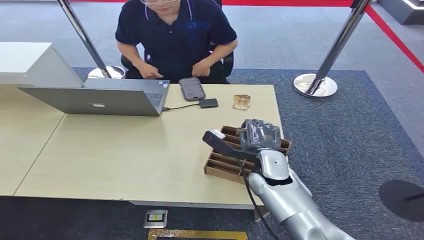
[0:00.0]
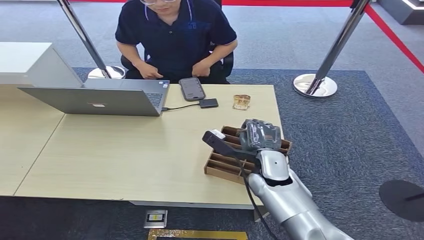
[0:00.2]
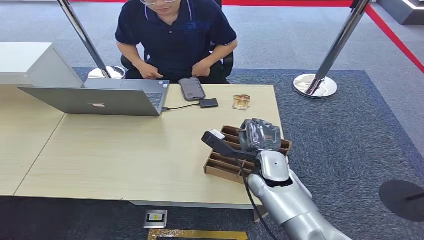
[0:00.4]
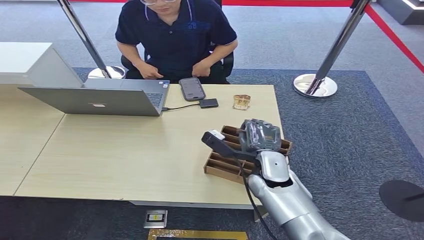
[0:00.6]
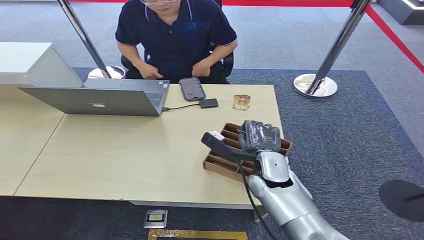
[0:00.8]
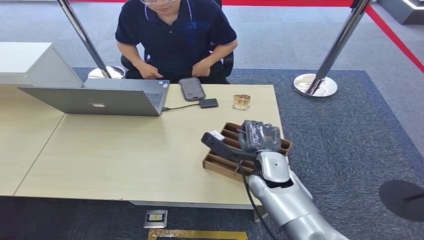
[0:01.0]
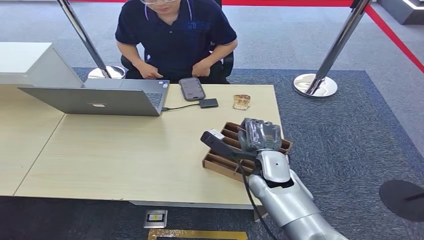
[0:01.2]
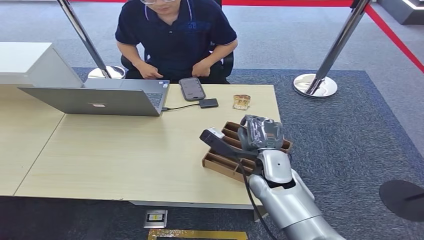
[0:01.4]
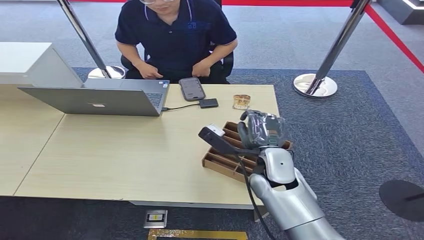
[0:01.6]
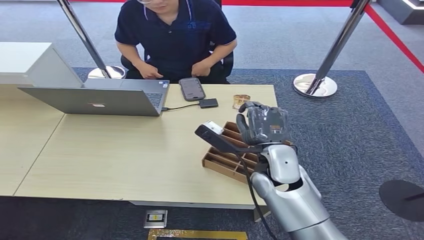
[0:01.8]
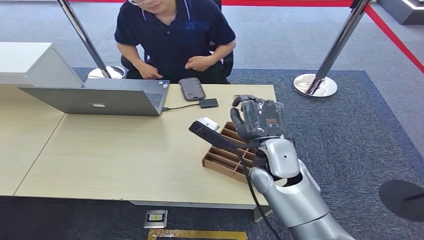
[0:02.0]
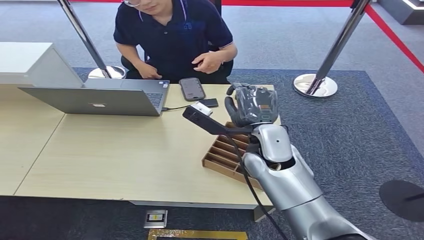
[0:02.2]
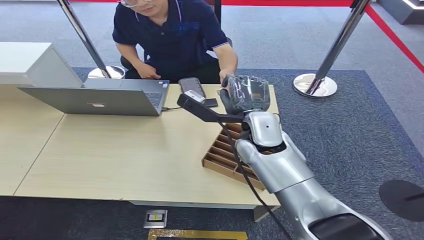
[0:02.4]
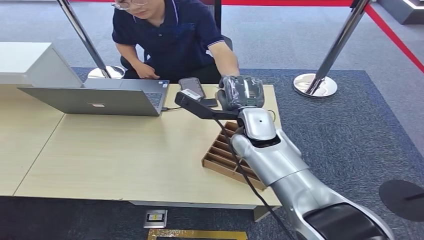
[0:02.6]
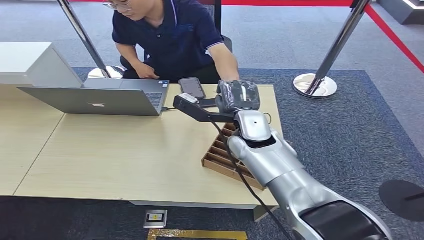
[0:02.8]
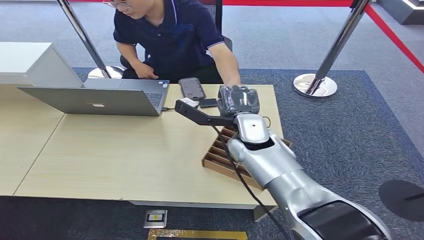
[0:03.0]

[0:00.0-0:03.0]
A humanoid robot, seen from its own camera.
Step, 0:00.0 to 0:01.6: Pick up the key card from the card box.
Step, 0:01.8 to 0:03.0: Hand the key card to the target.
0:01.6 to 0:03.0: The right hand moves forward and upward, approximately 10 cm.

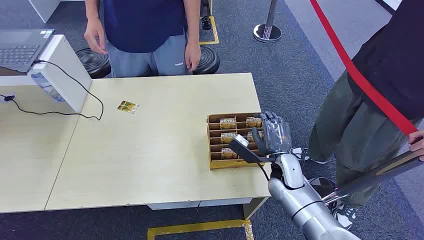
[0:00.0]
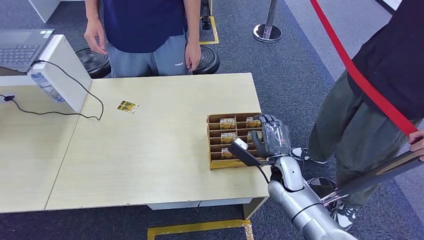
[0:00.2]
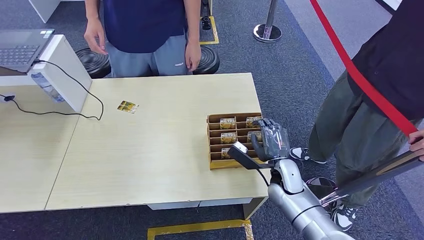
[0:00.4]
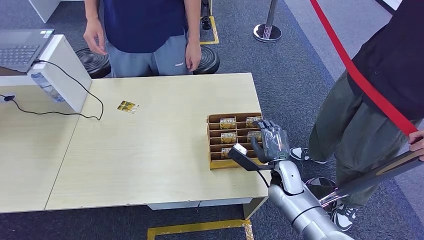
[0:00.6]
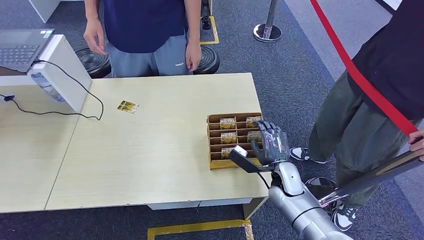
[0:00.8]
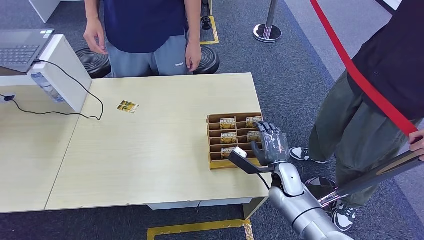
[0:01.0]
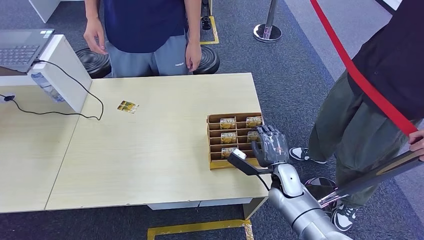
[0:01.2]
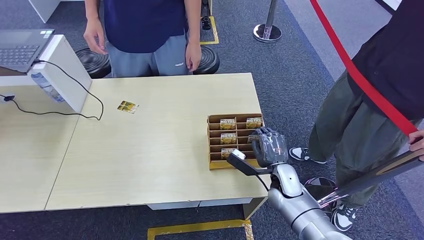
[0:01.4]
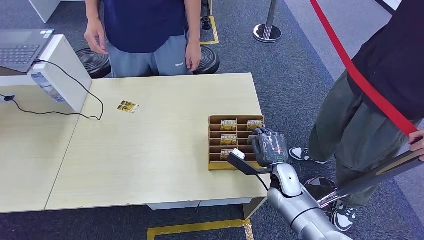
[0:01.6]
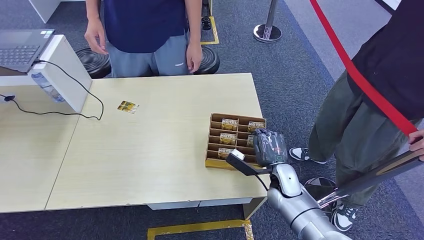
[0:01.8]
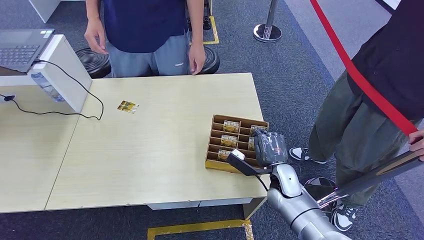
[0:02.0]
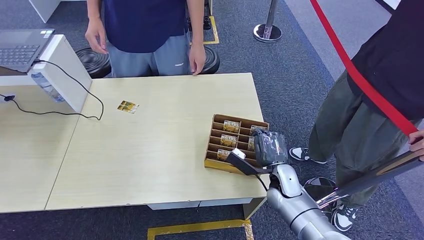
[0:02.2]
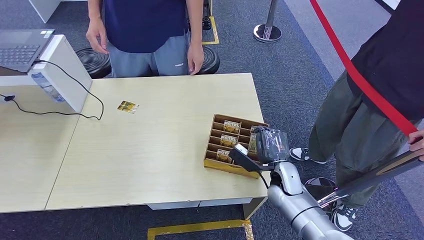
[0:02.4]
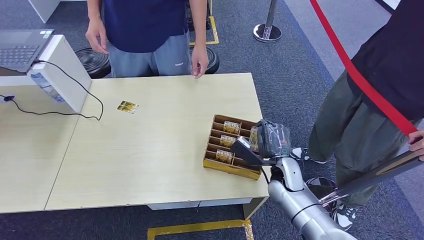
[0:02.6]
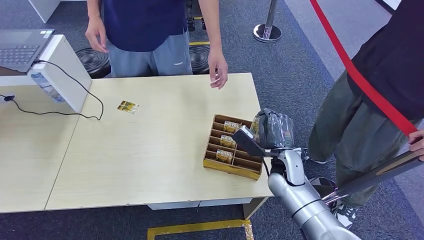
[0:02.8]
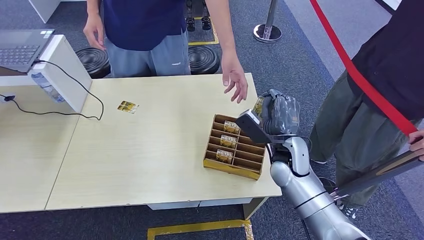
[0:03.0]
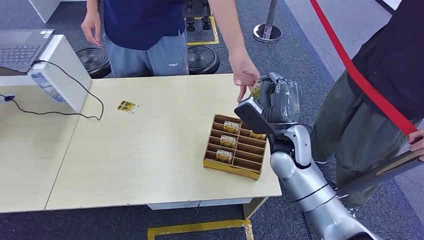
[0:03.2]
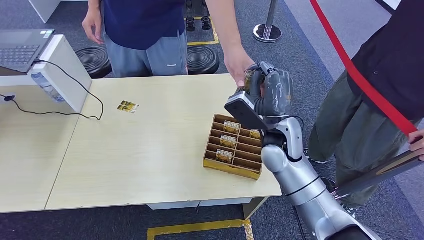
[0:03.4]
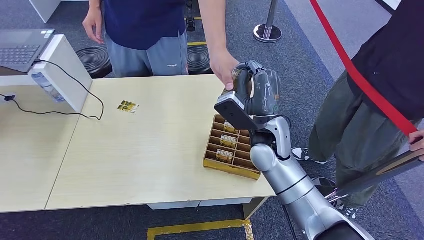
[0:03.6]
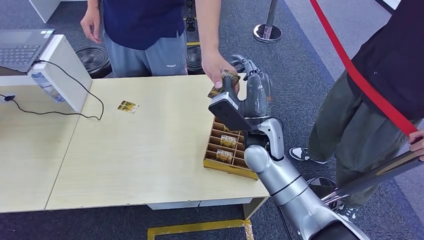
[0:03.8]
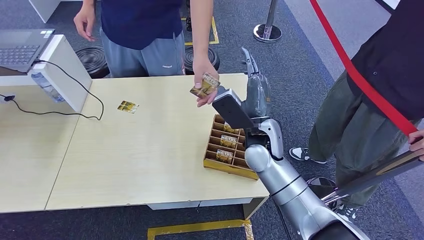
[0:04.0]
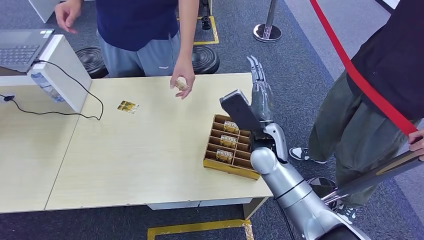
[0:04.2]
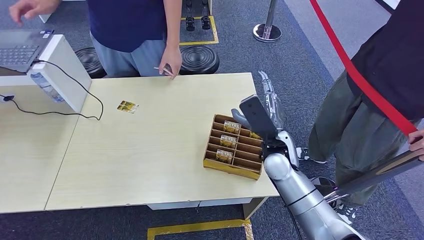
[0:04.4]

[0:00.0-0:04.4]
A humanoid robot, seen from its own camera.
Step, 0:00.0 to 0:02.8: Pick up the key card from the card box.
Step, 0:03.0 to 0:04.4: Hand the key card to the target.
0:01.4 to 0:03.0: The right hand shifts about 10 cm upward.

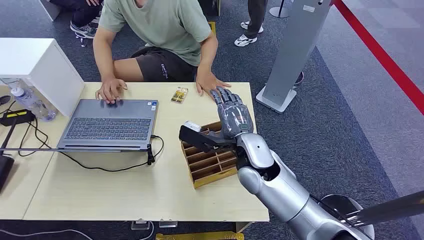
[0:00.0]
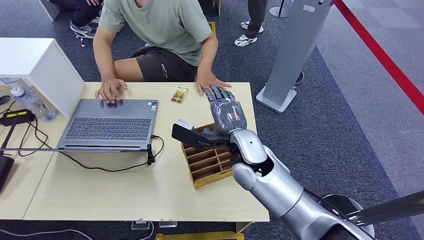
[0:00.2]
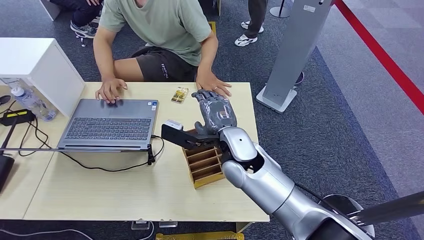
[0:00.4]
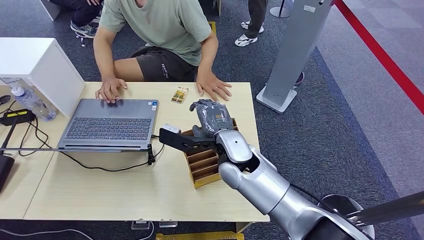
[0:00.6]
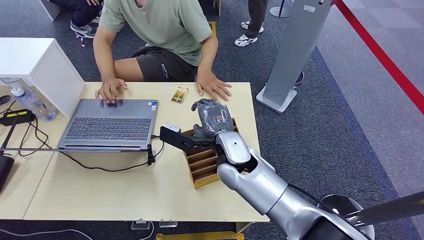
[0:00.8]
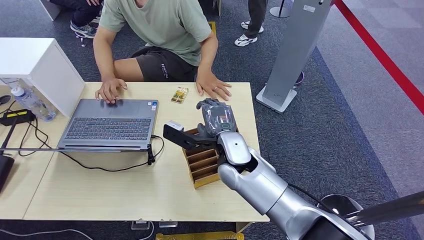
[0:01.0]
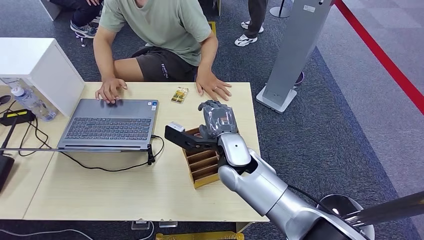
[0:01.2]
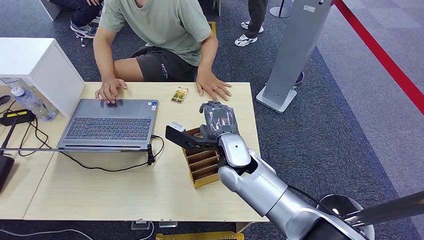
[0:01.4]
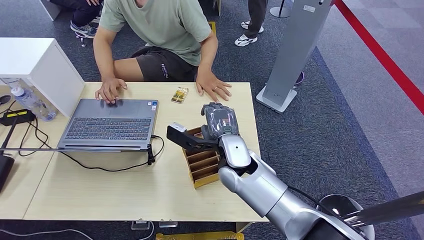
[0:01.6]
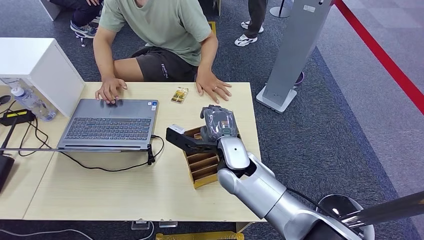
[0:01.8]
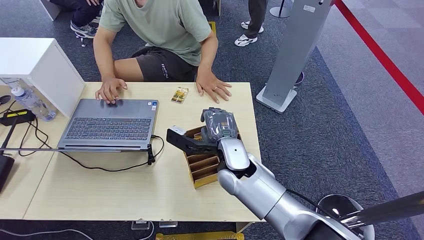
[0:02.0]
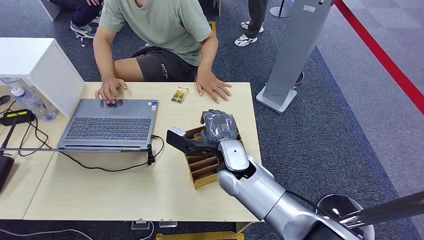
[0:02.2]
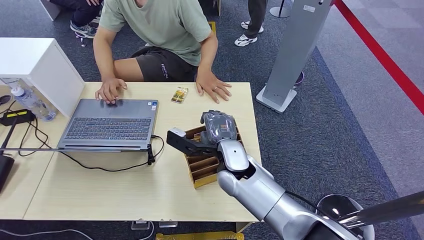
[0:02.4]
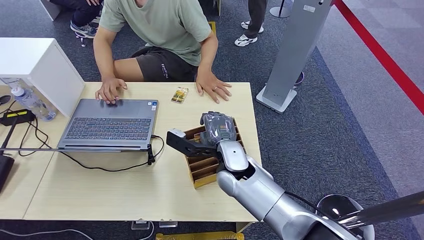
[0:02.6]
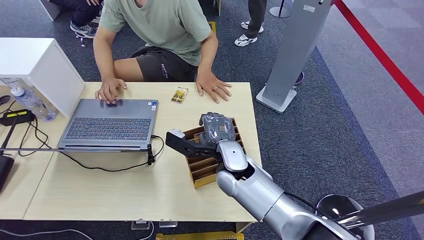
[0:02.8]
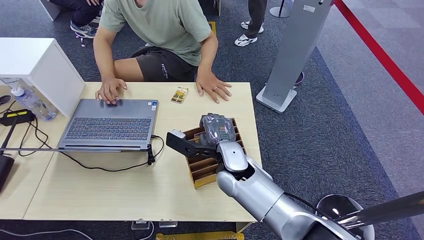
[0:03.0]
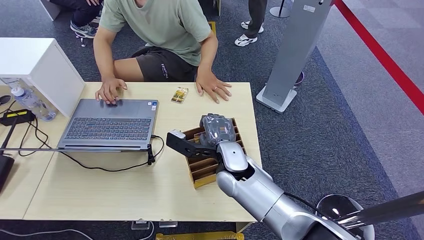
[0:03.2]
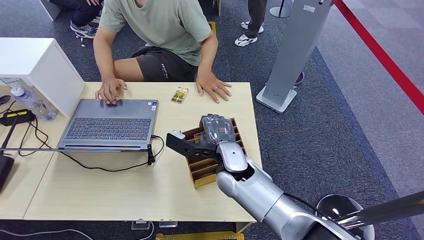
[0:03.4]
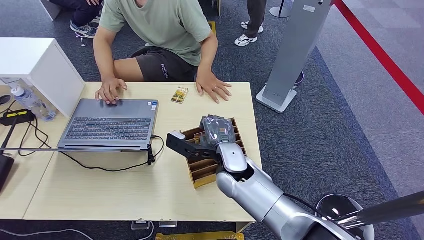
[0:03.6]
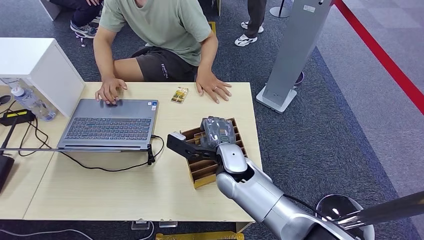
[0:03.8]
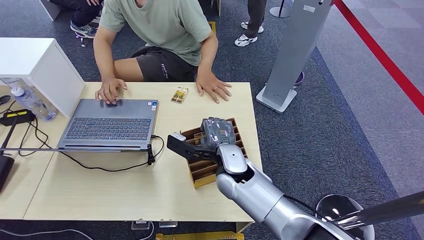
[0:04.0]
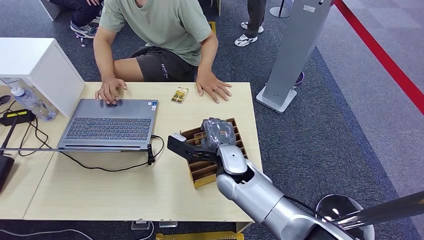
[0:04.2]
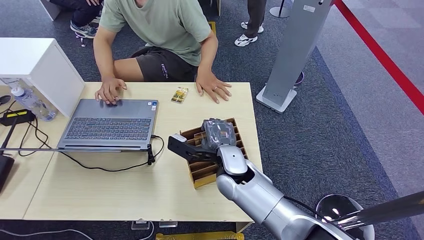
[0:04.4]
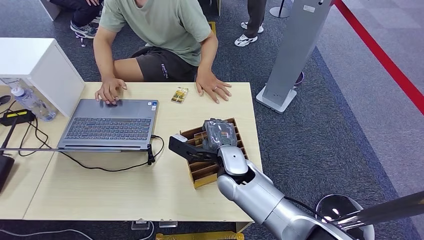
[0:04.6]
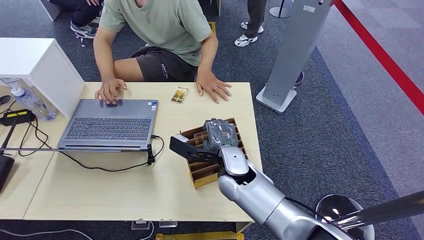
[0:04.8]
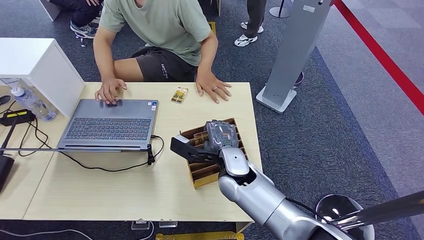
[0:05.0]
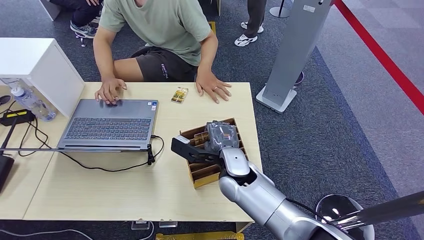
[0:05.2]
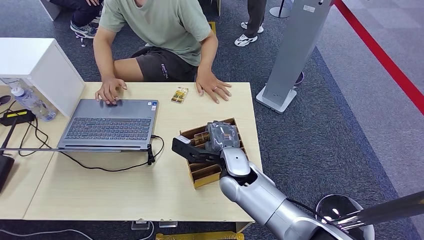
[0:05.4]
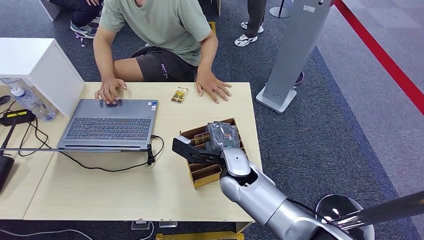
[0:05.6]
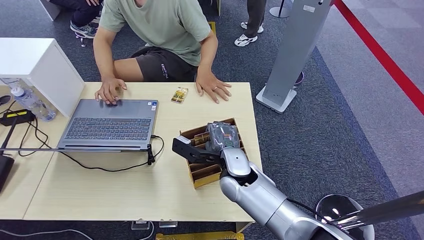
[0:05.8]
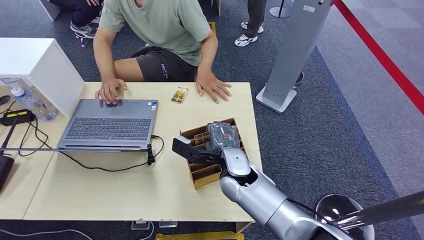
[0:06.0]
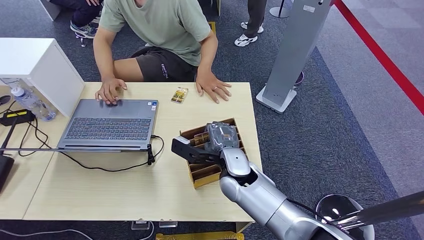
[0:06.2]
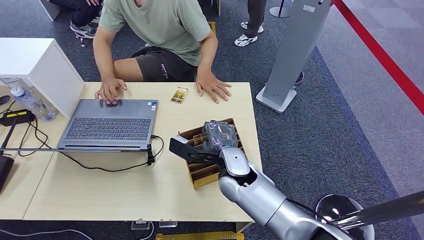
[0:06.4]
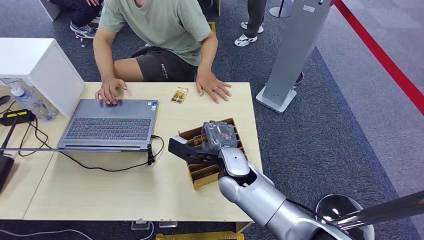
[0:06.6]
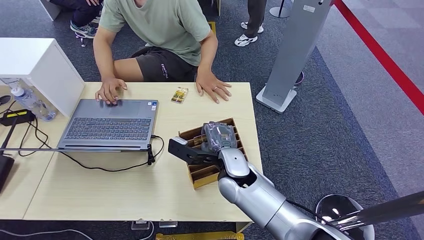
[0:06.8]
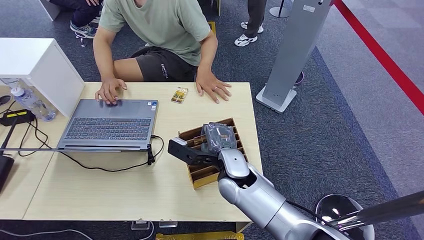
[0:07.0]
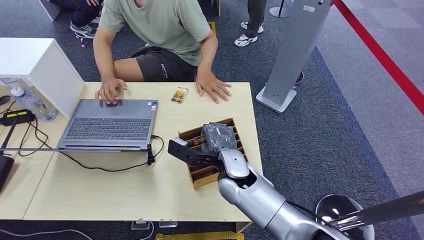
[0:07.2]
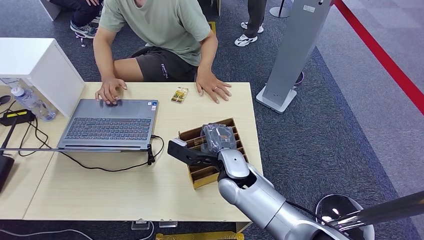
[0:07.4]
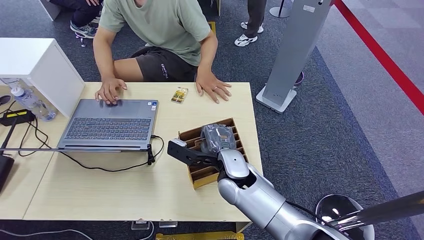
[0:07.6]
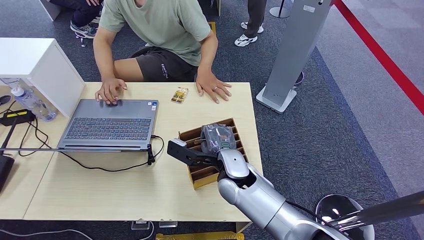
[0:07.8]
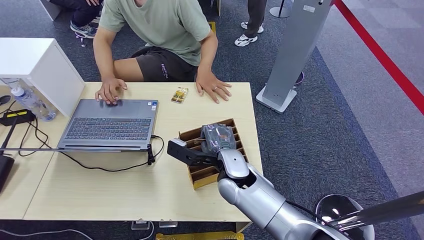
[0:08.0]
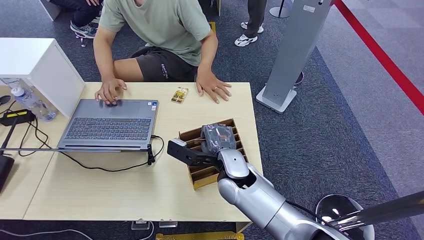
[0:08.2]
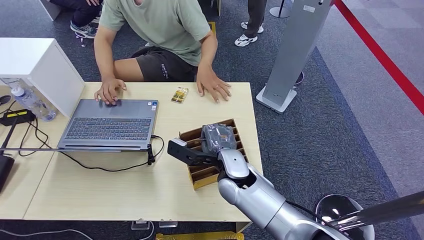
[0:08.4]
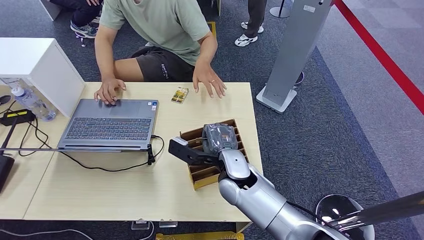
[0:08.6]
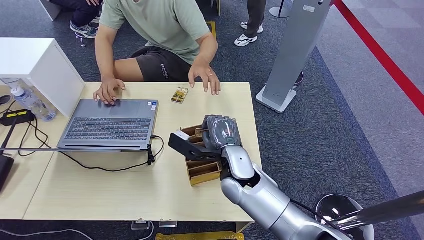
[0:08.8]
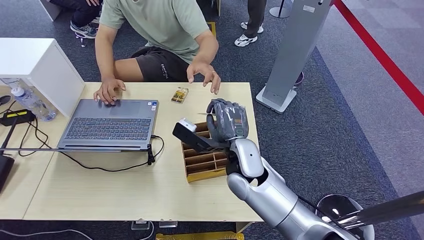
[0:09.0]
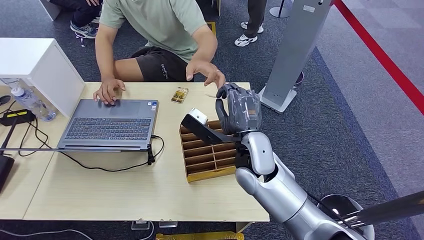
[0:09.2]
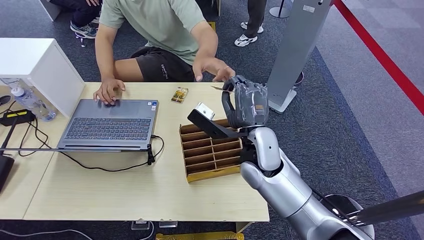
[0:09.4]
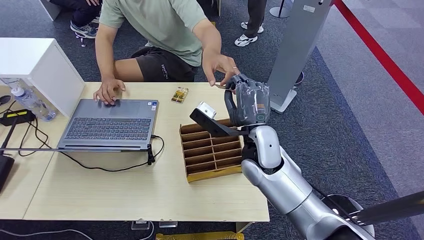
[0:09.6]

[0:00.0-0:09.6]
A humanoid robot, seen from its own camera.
Step, 0:00.0 to 0:09.0: Pick up the key card from the card box.
Step, 0:09.2 to 0:09.6: Hand the key card to the target.
0:01.6 to 0:03.2: There are only small adjustments of the hands.
0:03.2 to 0:04.8: The two hands keep their place.
0:04.8 to 0:08.0: Both hands stay about where they are.
0:08.0 to 0:09.6: The right hand moves upward and to the right, some 10 cm.
